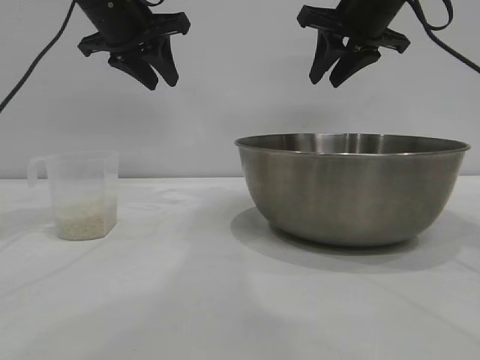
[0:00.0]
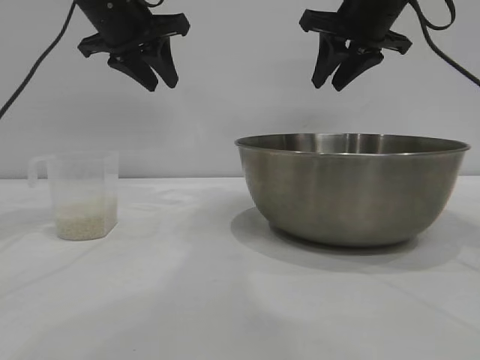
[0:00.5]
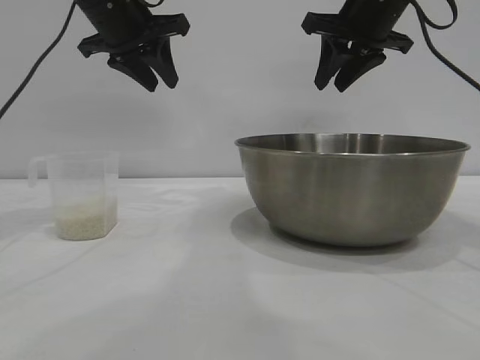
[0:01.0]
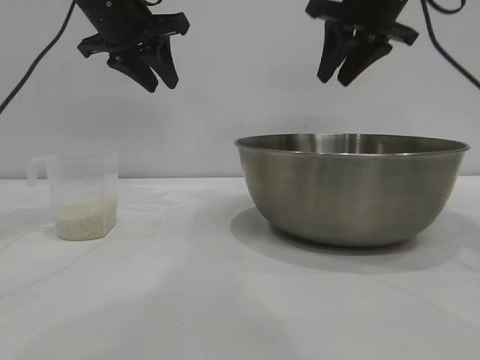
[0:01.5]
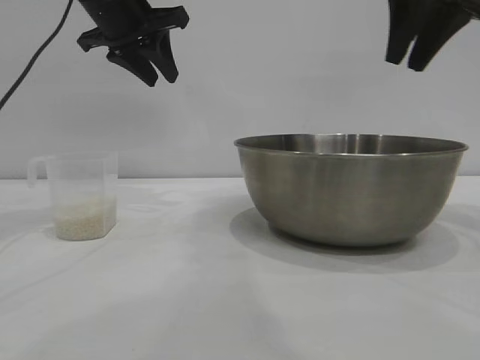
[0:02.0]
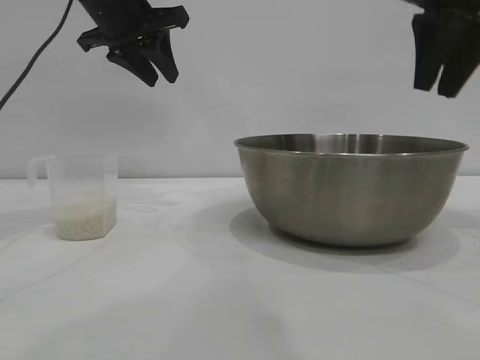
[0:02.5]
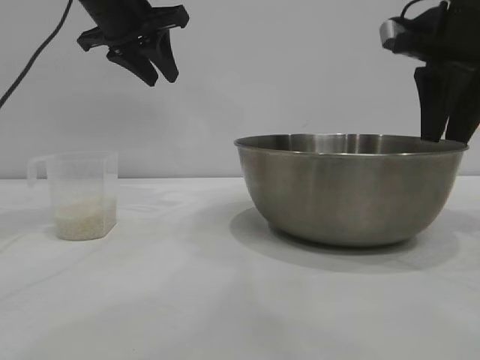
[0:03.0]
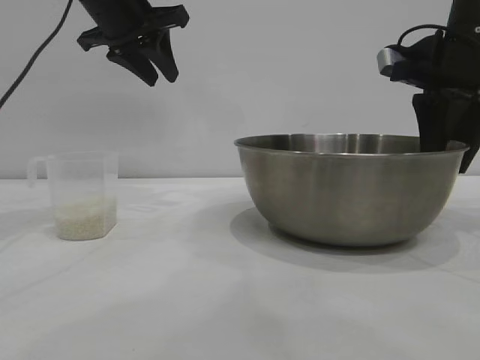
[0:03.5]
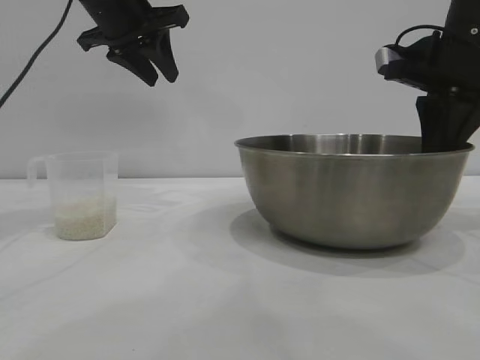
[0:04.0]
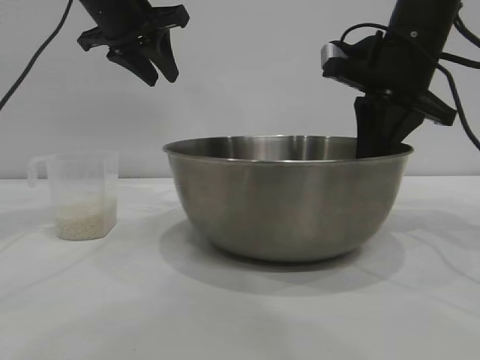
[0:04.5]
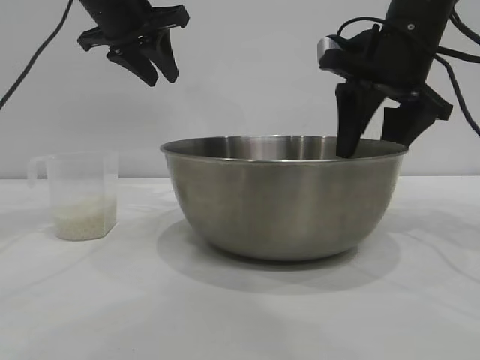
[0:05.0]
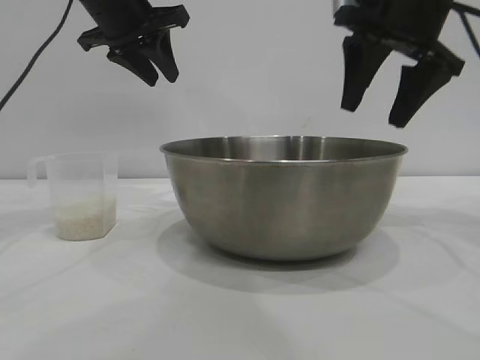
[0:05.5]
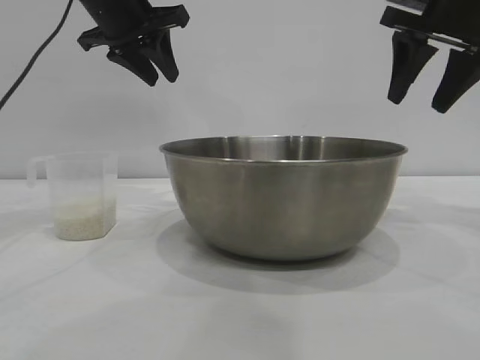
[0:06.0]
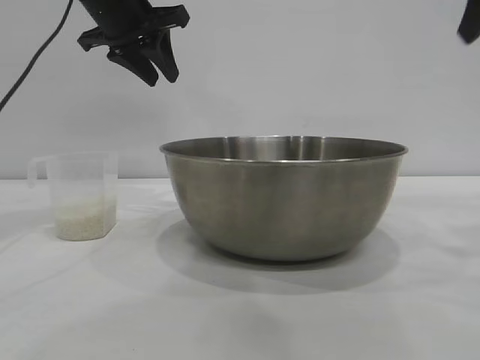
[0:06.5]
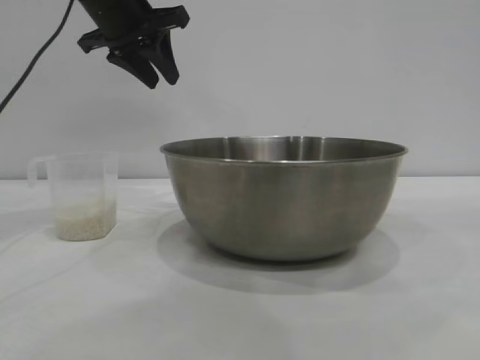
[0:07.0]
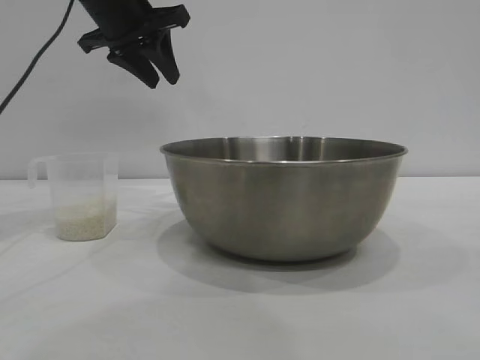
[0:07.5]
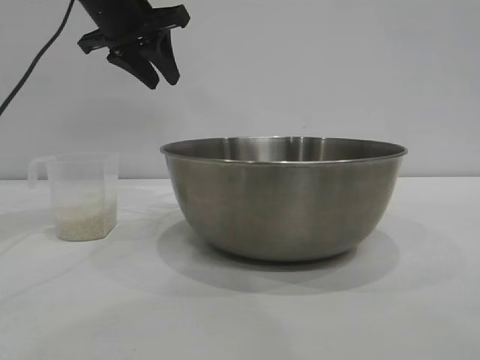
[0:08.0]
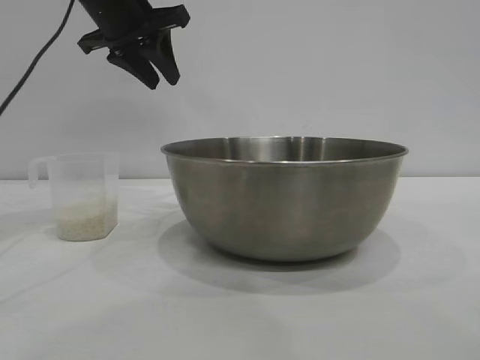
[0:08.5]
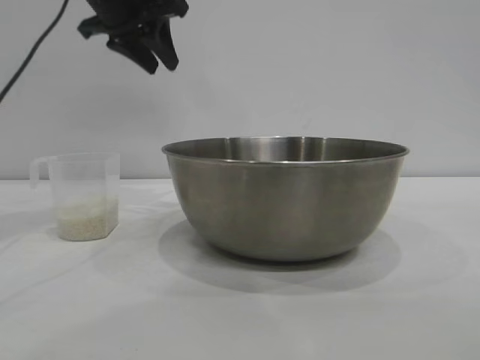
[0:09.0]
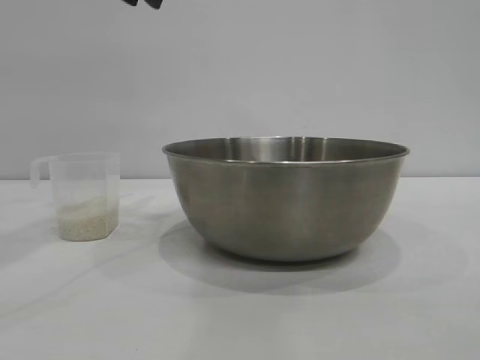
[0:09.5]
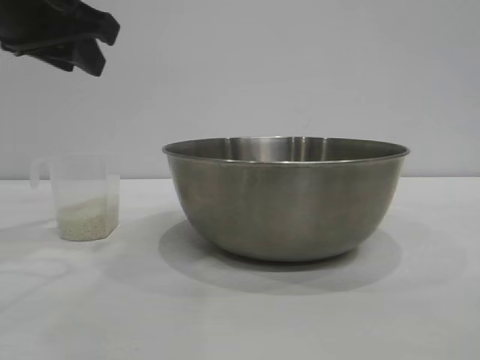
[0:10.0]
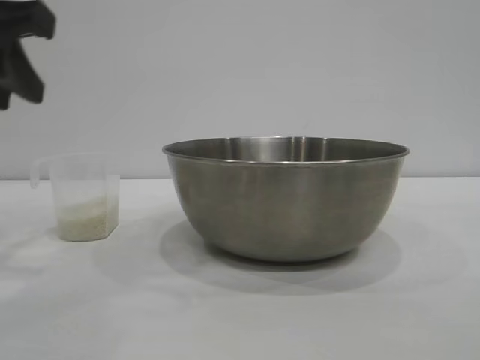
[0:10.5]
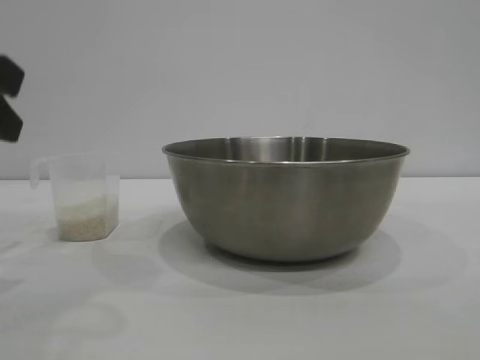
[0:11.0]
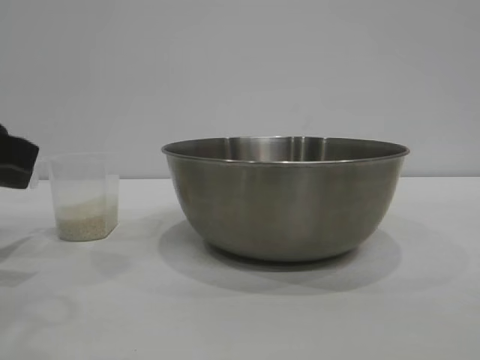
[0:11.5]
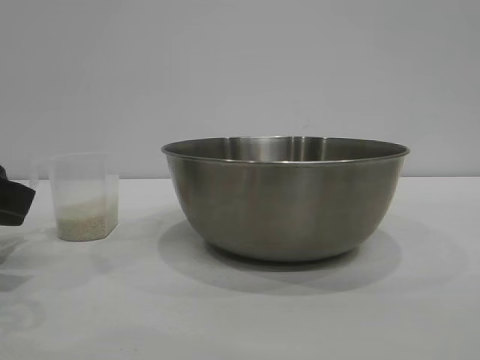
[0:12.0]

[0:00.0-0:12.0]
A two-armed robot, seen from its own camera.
Task of the whole recording: the right gripper grasp the rice container and place it in the center of the table, the left gripper grasp the rice scoop and pour the rice into the rice container.
Step, 0:00.0 to 0:06.0: Move the bowl to the center of view with the right gripper.

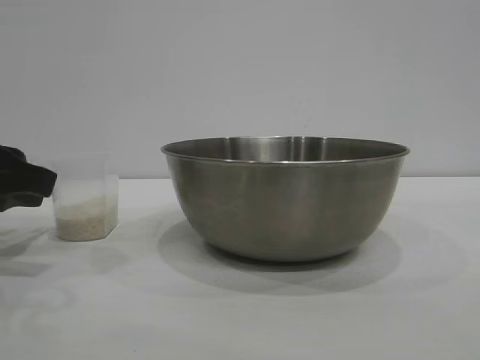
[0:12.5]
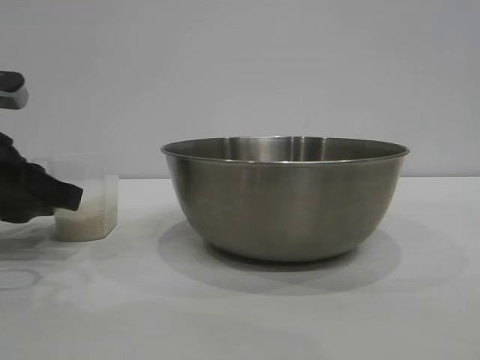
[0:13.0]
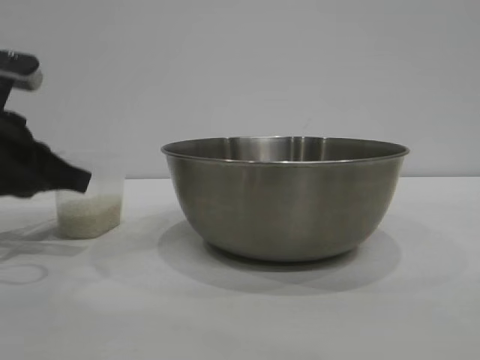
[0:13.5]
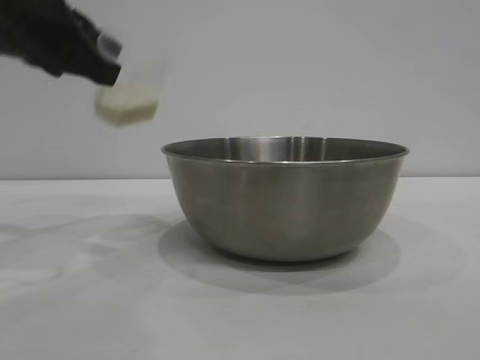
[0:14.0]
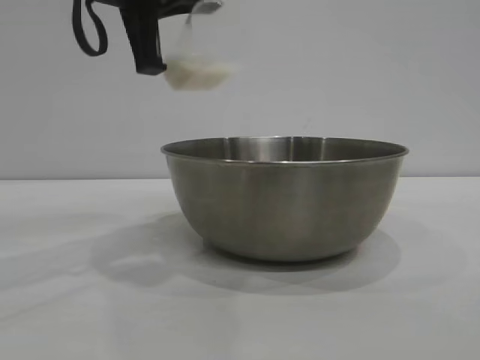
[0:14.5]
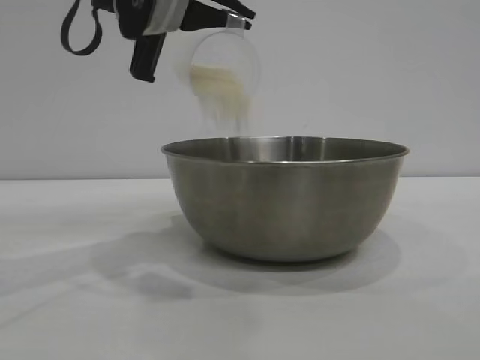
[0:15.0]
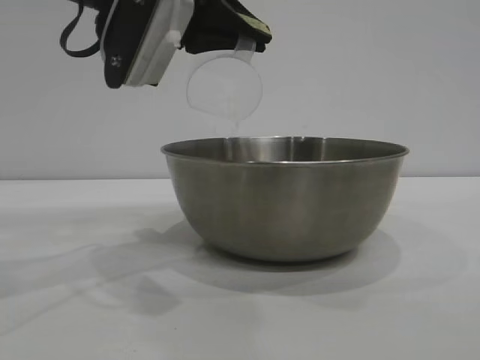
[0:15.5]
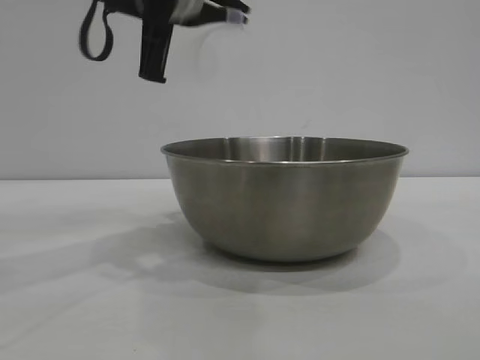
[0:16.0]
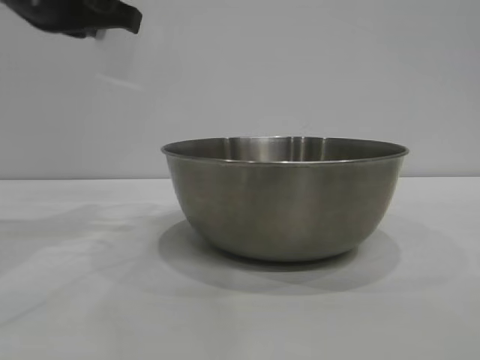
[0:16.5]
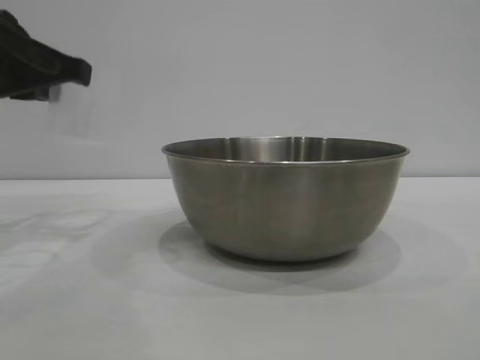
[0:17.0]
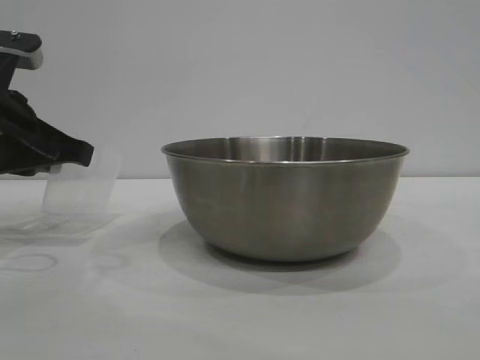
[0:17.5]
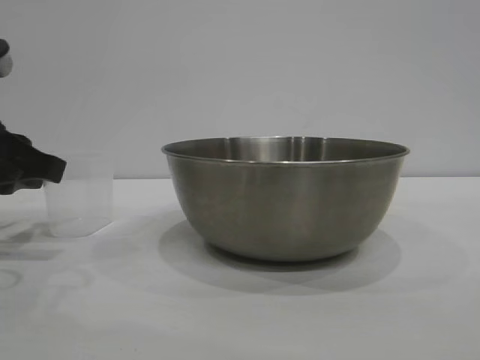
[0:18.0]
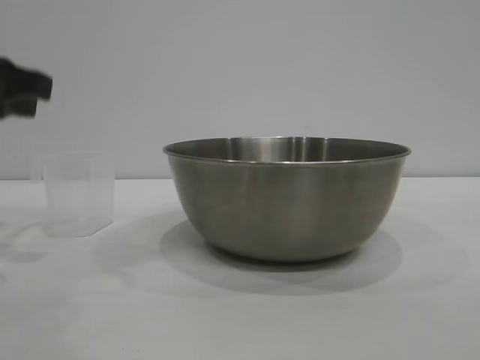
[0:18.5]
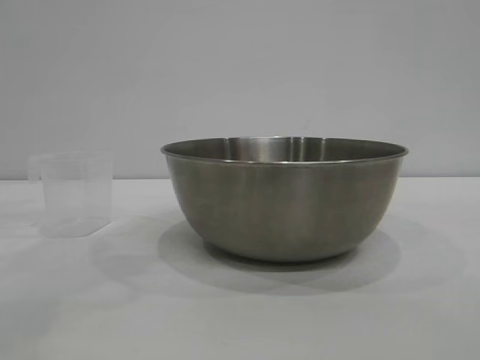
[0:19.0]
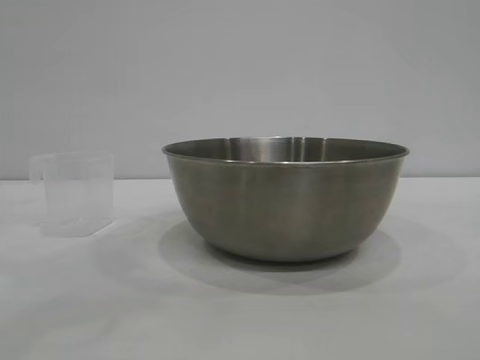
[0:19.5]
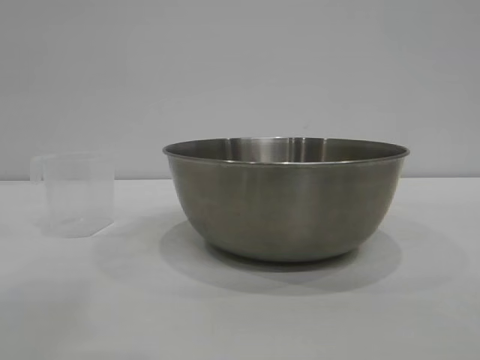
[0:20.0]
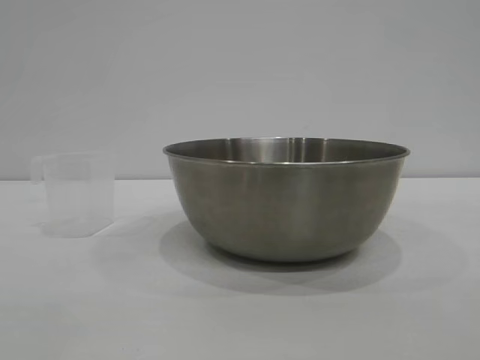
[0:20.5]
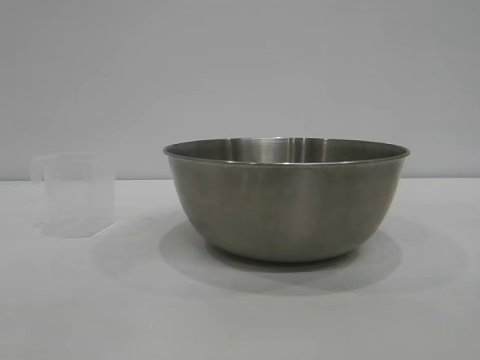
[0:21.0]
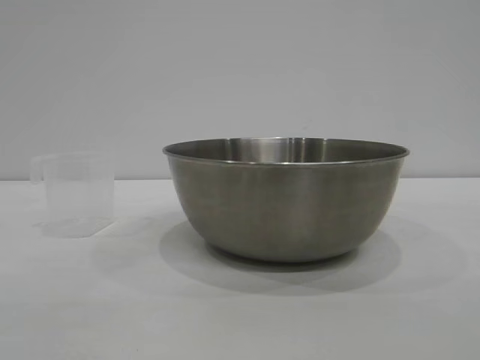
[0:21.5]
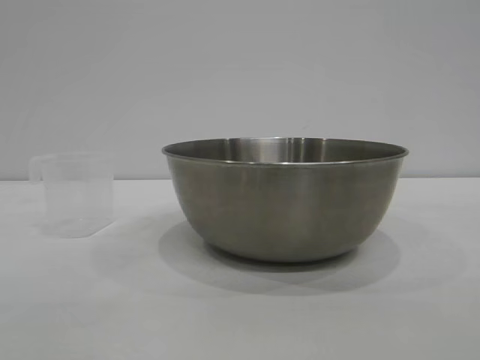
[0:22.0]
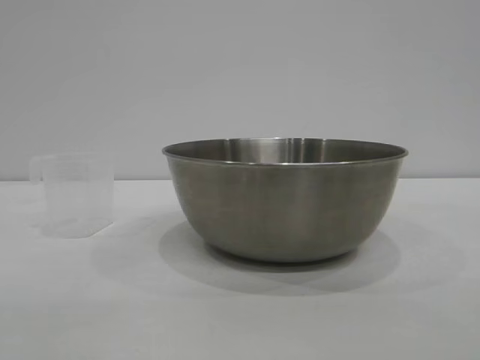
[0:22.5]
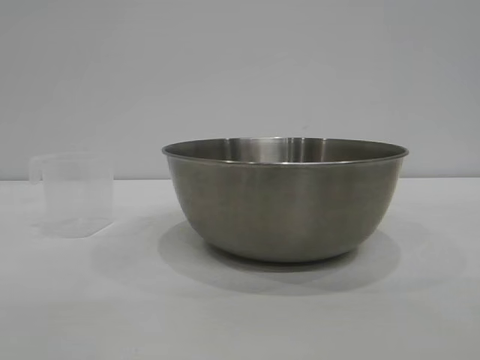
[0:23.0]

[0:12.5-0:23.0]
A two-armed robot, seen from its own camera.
Task of the whole recording: the right gripper grasp the rice container and place it in the center of the table, the left gripper grasp the rice scoop and pour the rice into the rice container.
Step, 0:14.0 to 0:15.5: Pour the rice from the cup into the bowl with the left gripper.
Step, 0:16.0 to 0:18.5: Place the cup on the table with the left gripper.
